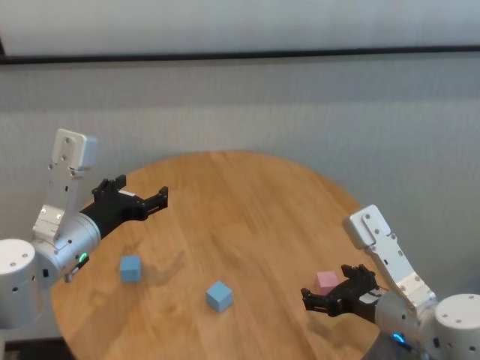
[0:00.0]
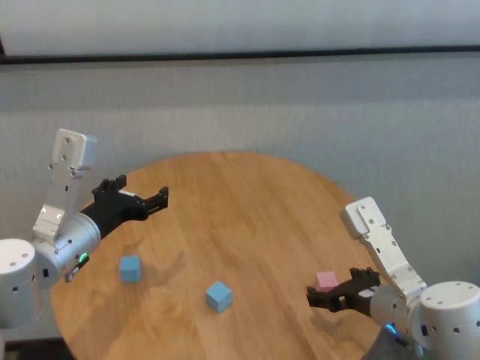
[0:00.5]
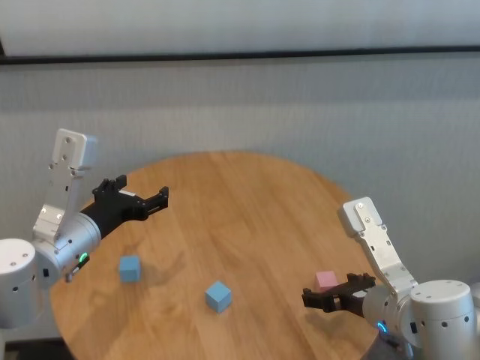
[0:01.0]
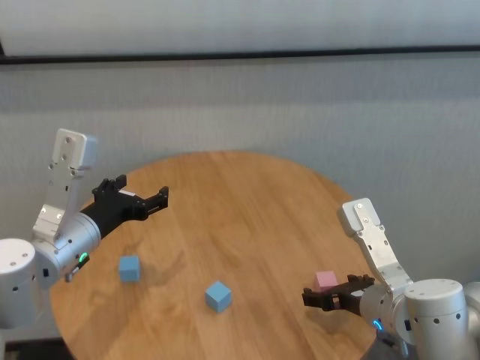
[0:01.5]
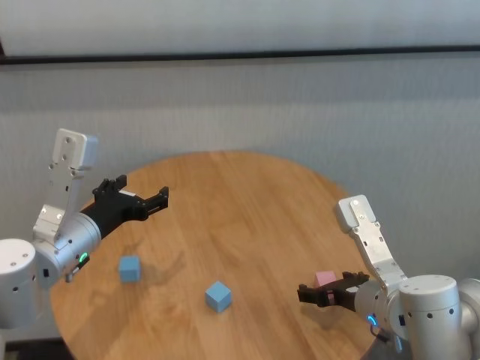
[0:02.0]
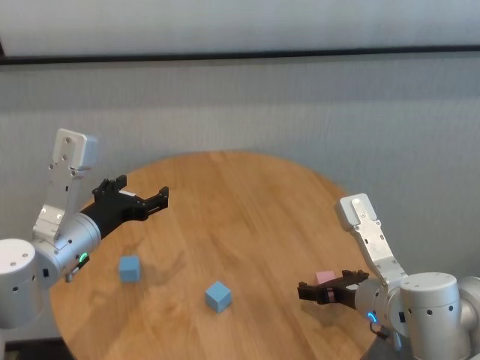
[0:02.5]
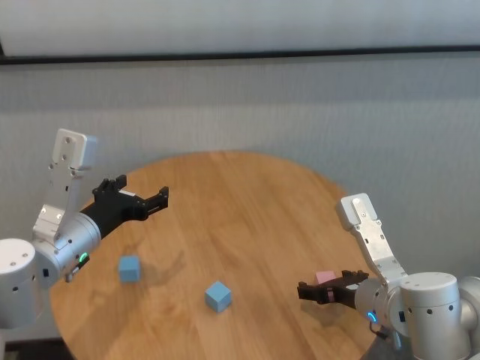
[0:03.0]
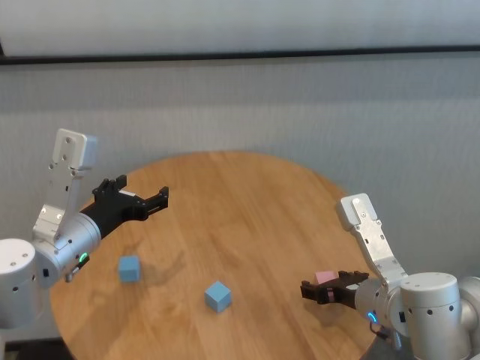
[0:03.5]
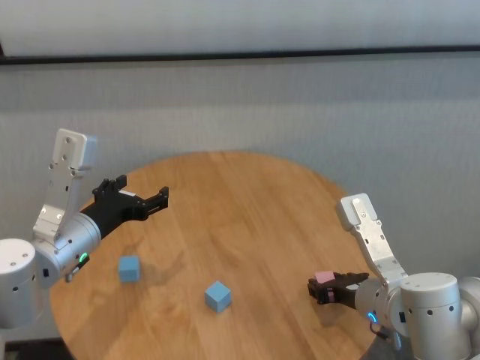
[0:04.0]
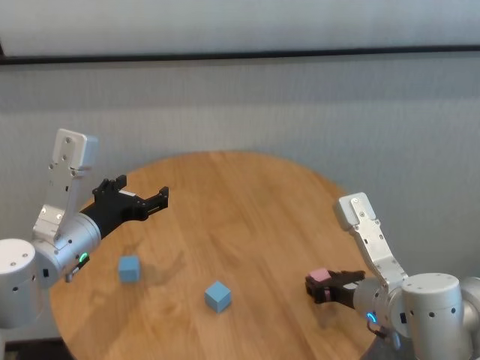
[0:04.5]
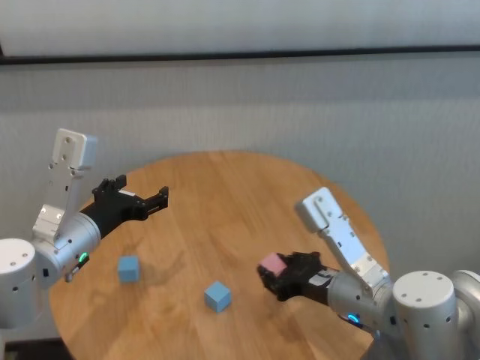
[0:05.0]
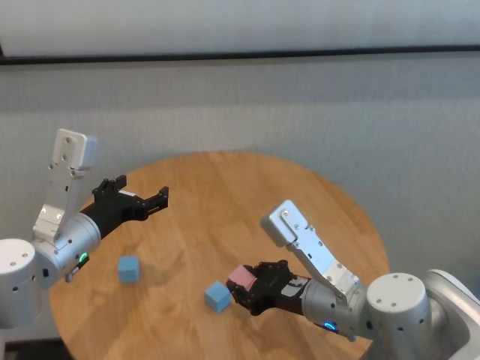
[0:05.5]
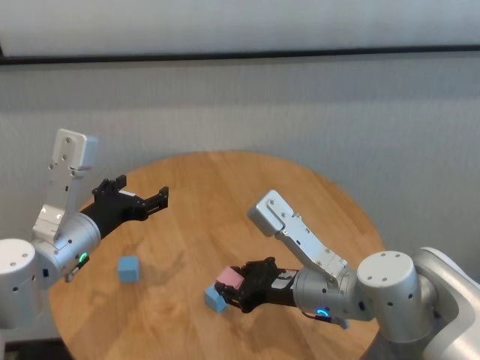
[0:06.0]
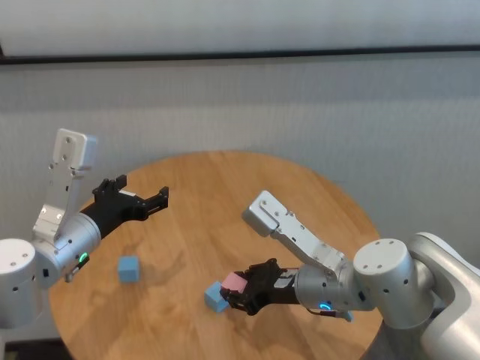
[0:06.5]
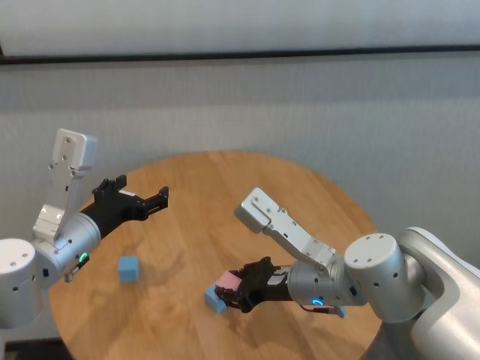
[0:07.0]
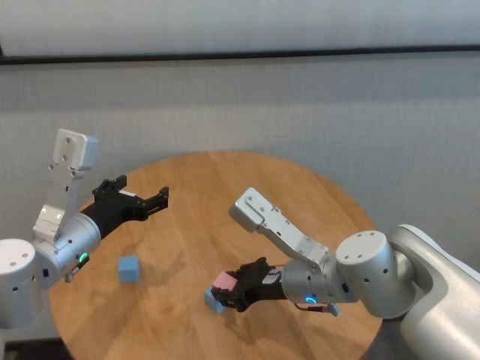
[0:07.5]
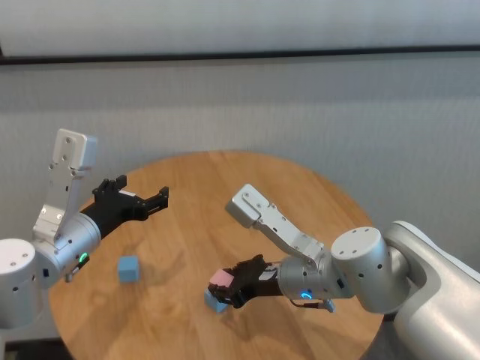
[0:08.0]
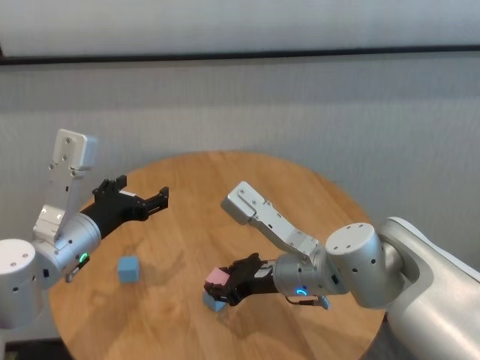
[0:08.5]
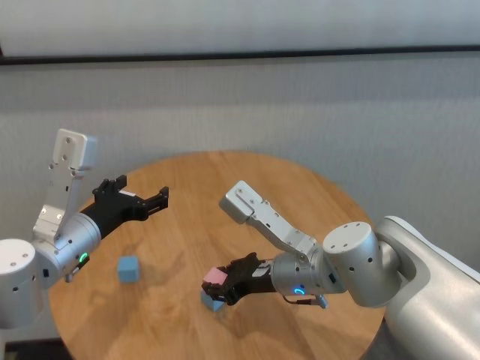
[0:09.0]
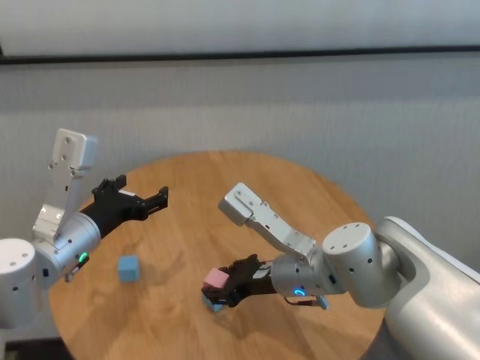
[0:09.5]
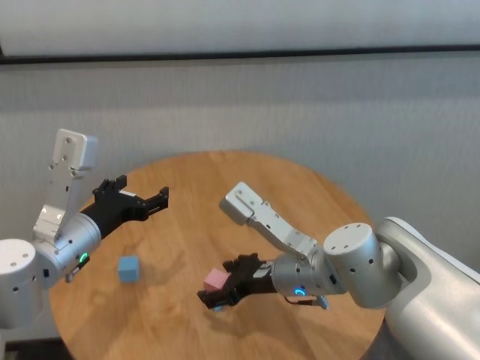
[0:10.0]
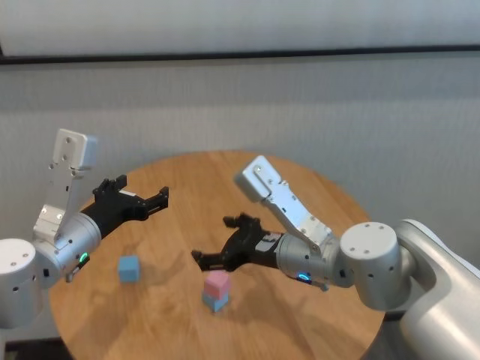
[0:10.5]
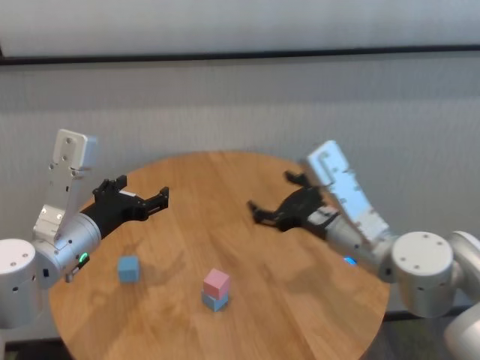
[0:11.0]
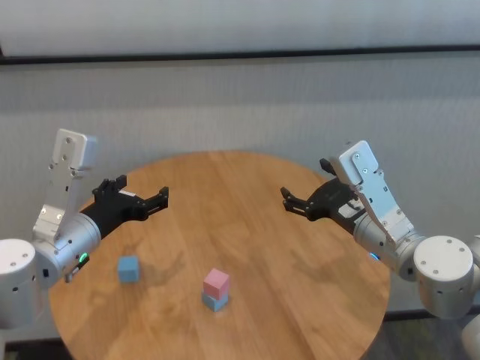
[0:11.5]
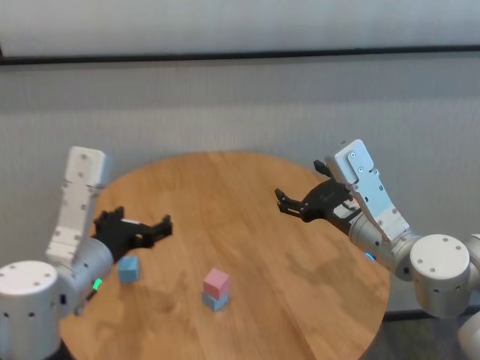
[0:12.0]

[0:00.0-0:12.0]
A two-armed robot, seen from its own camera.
Task of the whole recording: stack building blocks on the table.
Step, 0:00.0 to 0:04.0: Grasp the pink building block with right gripper.
Step, 0:04.5 to 0:09.5: Place the pink building block on the blue building blocks with right gripper.

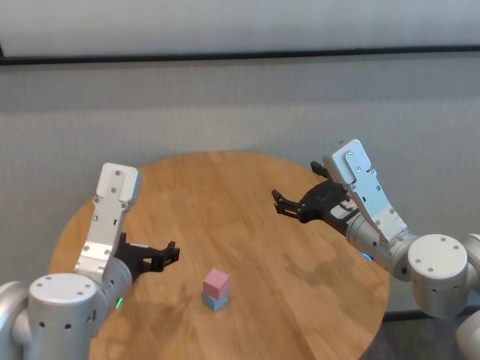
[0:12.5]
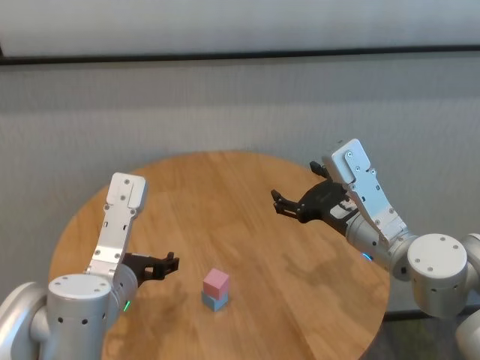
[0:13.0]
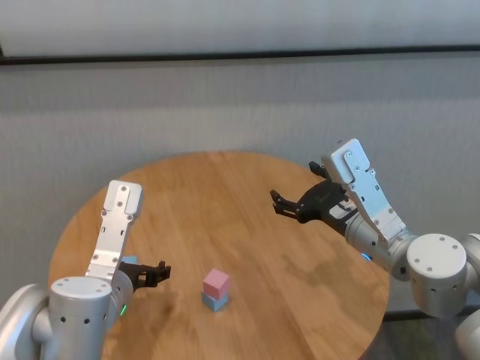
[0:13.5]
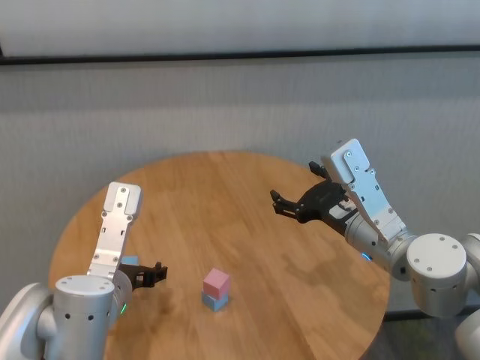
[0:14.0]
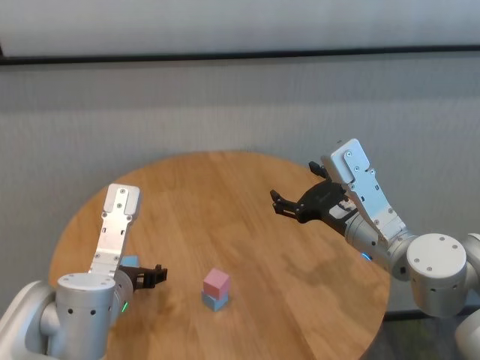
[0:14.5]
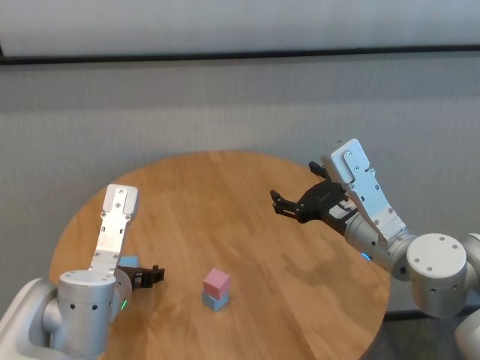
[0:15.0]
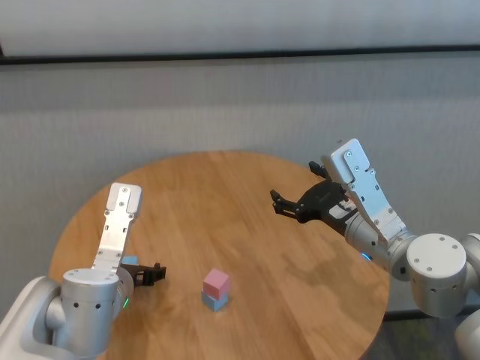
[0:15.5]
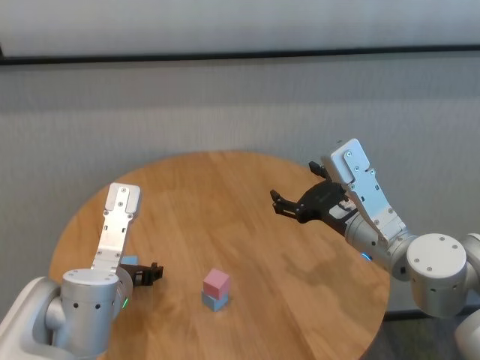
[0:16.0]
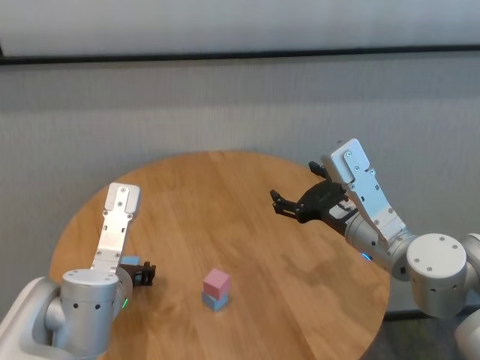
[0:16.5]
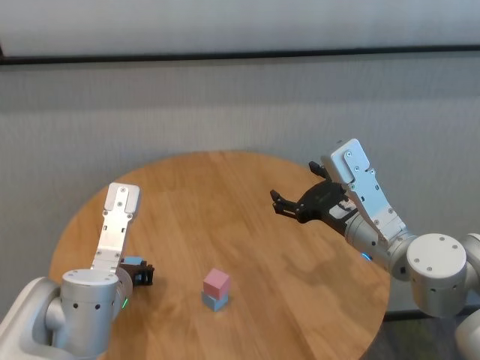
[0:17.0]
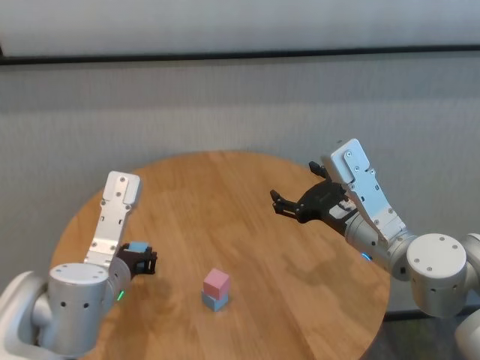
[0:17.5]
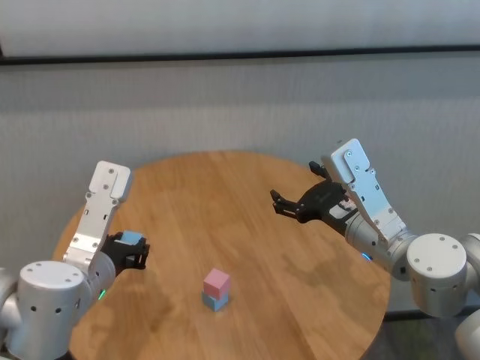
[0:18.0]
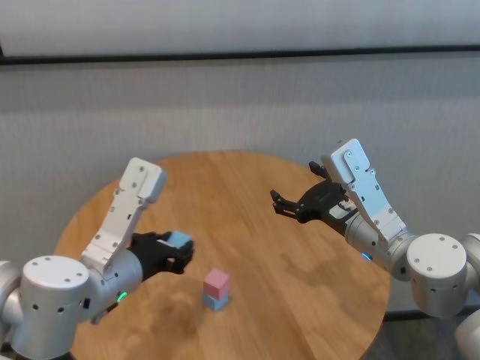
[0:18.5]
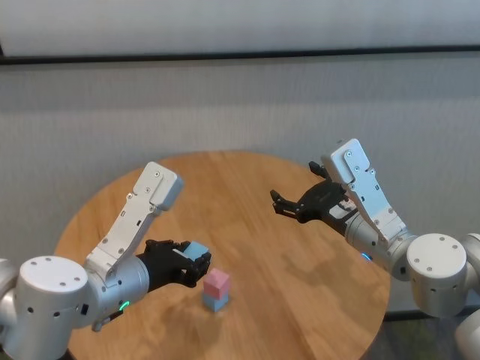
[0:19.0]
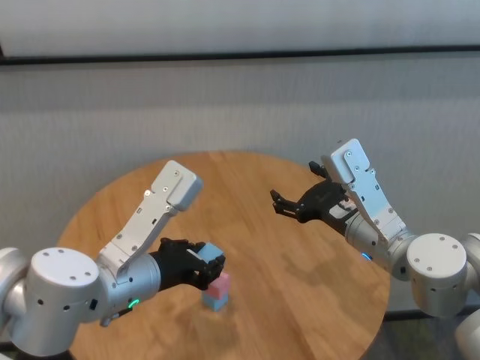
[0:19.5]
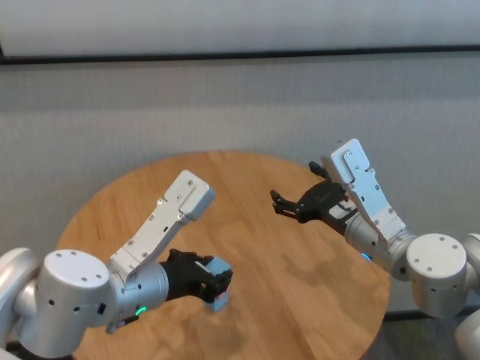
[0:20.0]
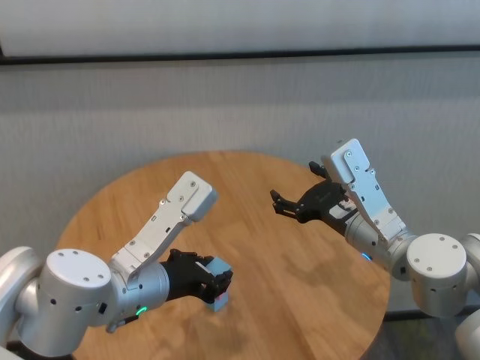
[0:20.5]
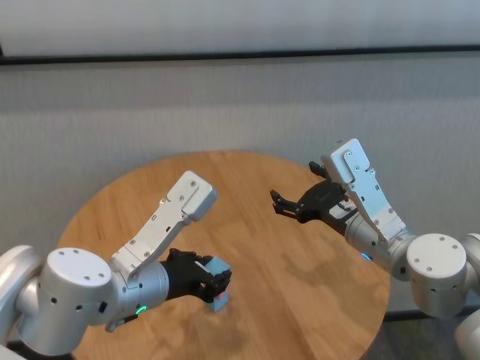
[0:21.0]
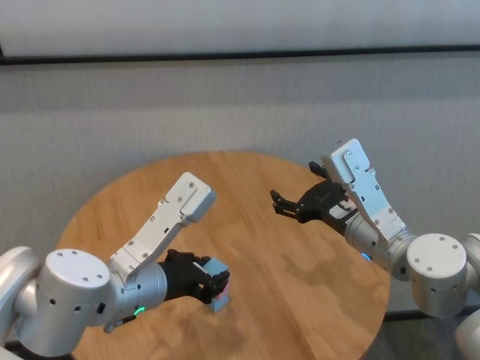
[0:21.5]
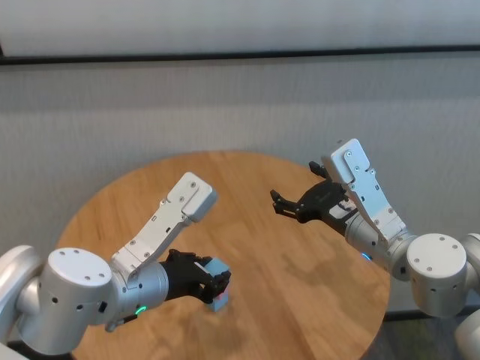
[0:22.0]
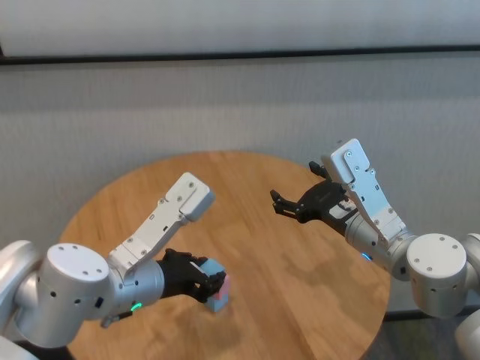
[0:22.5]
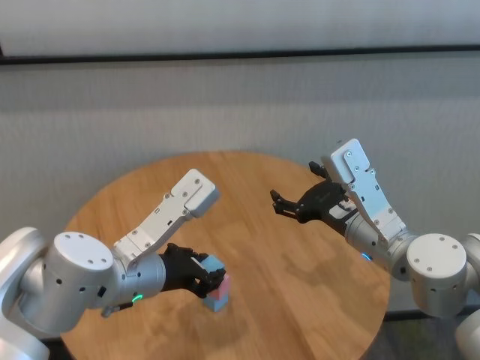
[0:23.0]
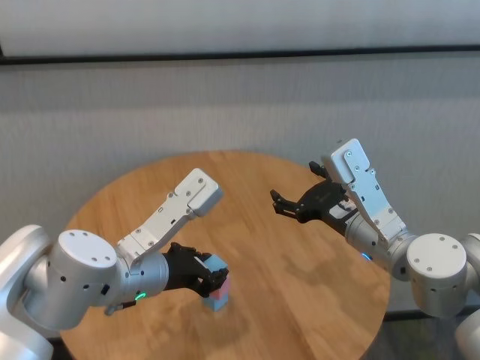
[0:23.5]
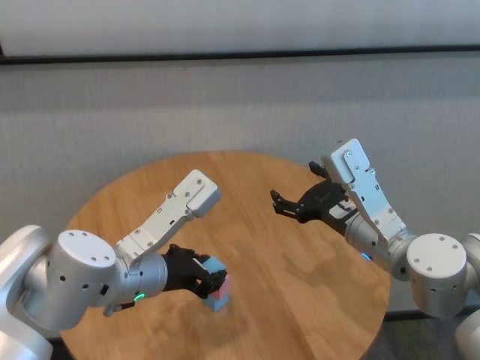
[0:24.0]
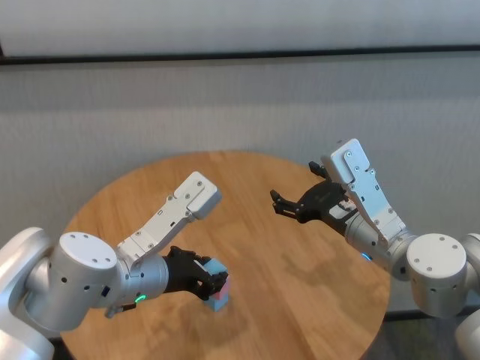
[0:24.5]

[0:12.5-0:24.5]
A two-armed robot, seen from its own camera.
Task of the whole recording: stack building blocks on the table.
Step, 0:12.5 to 0:16.5: Grasp the blue building block with left gripper.

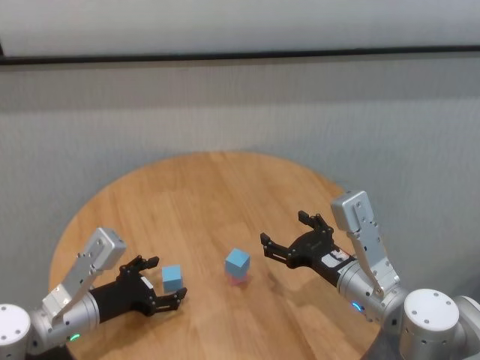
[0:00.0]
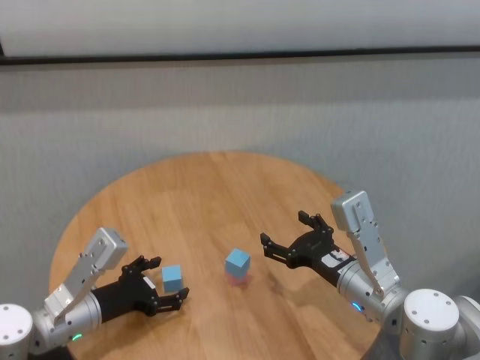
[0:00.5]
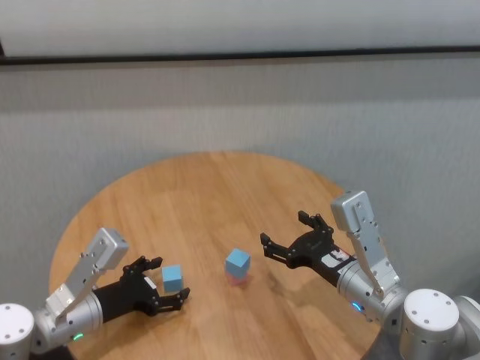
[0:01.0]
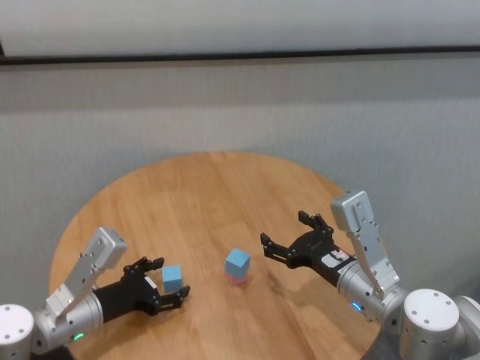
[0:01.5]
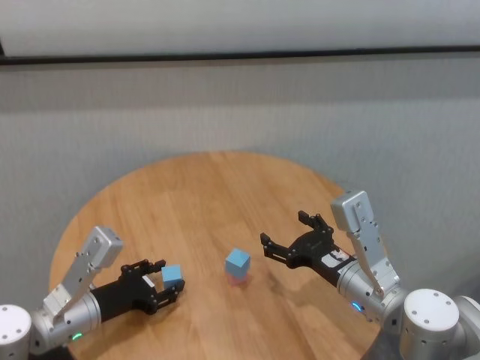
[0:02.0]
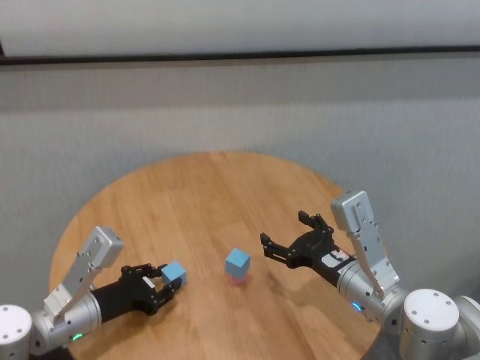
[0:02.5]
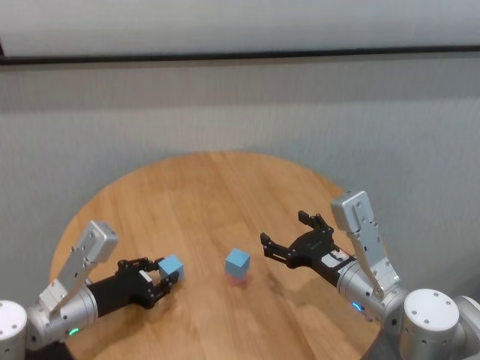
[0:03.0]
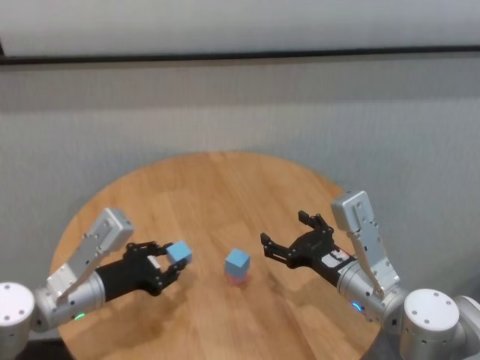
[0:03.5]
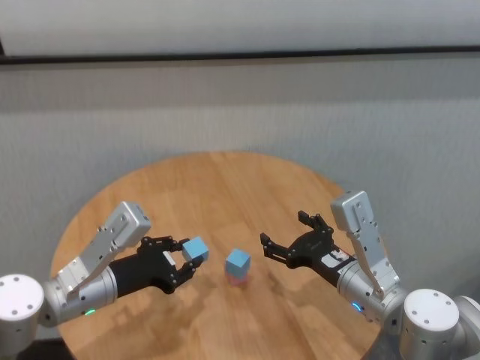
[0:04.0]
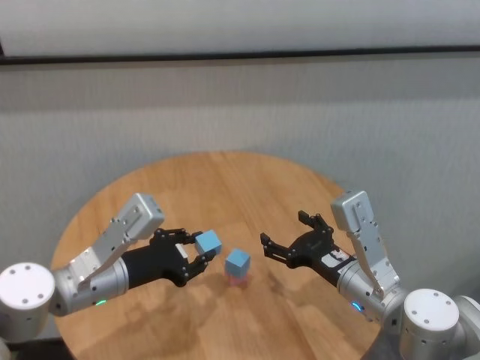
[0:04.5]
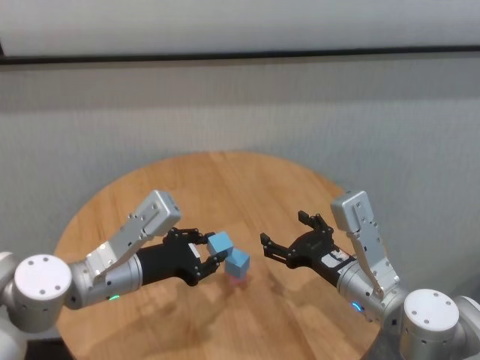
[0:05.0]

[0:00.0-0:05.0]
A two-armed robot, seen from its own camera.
Task of the whole recording: stack building blocks on the table.
Step, 0:00.0 to 0:02.0: Grasp the blue building block with left gripper.
